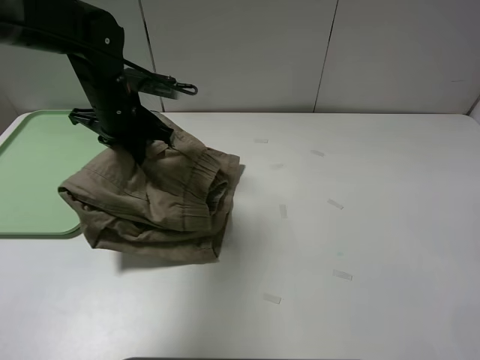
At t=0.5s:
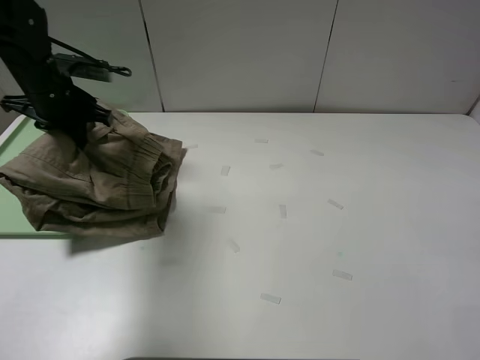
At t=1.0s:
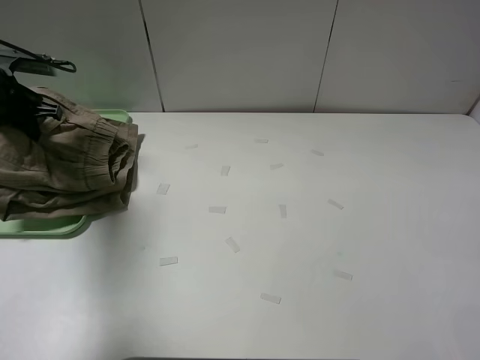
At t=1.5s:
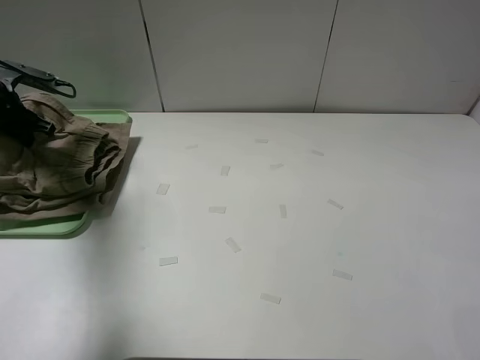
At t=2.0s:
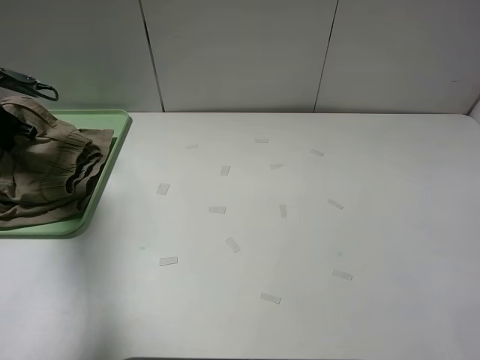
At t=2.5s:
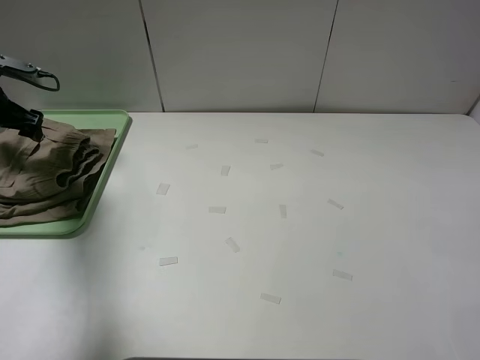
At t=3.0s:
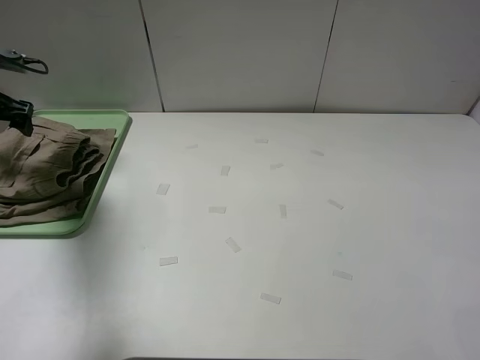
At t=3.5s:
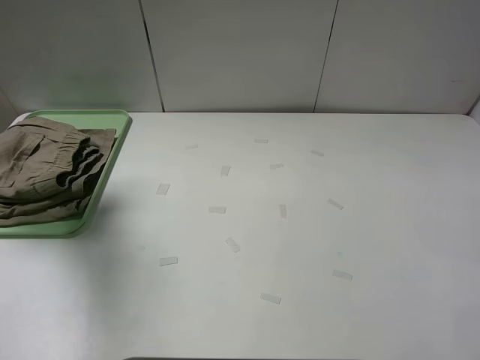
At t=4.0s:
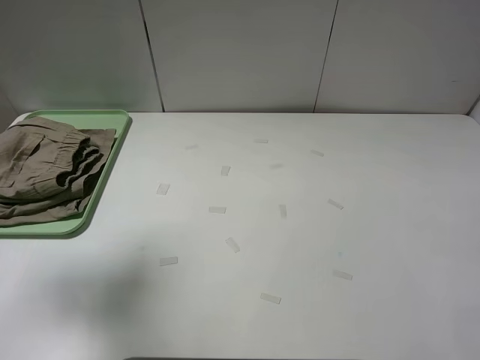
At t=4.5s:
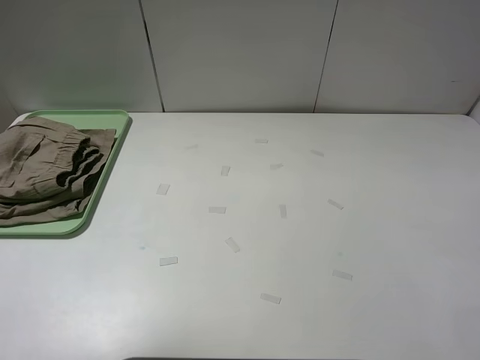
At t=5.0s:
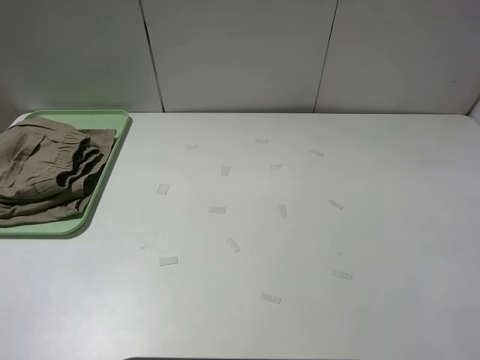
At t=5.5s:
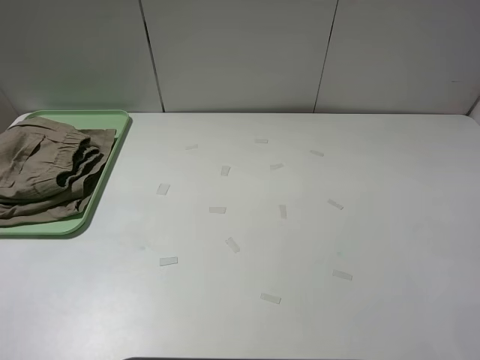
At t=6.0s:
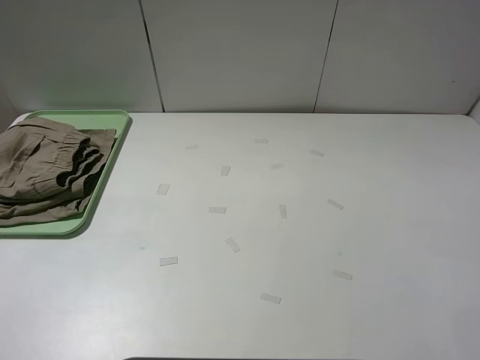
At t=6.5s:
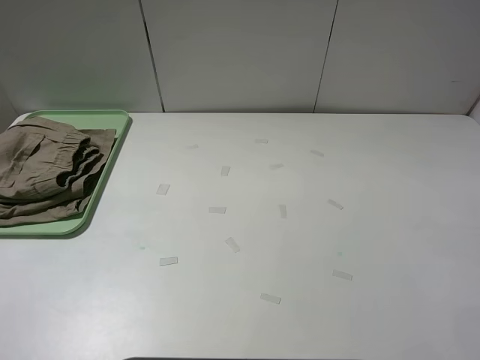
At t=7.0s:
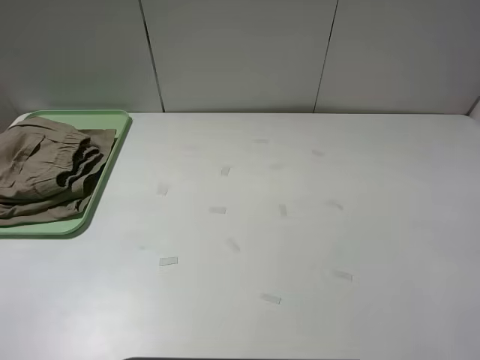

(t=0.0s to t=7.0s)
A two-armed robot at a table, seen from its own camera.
Task of the whole recording: fold the khaki jeans in half with two grippers, then fold them in half again, and use the left claw to place the folded fold khaki jeans on the tray.
Step, t=0.0s - t=2.5s: Place the folded khaki trousers on the green tray with the left gripper.
t=0.0s - t=2.0s: The left gripper goes about 25 cm to the left.
t=2.0s - t=3.5s: The left gripper heads upward and backward, covering about 15 cm, and opens up.
t=3.5s - t=5.0s: The left gripper heads backward, covering roughly 35 cm.
